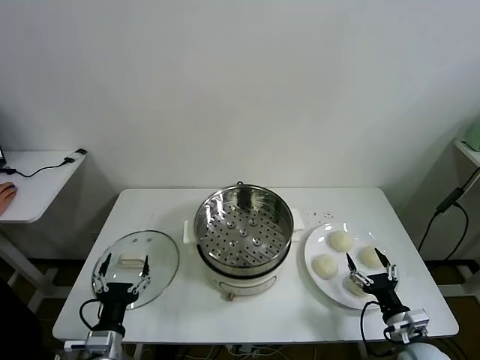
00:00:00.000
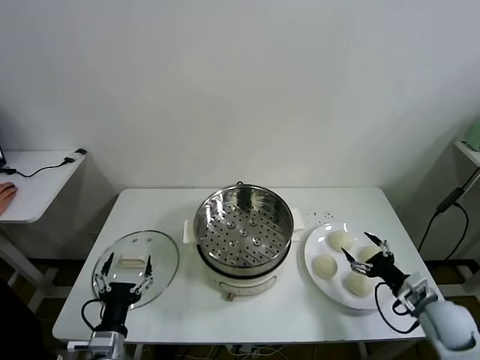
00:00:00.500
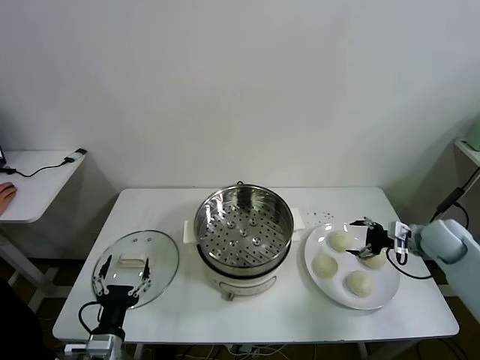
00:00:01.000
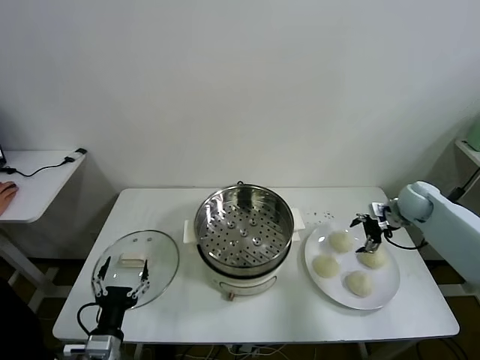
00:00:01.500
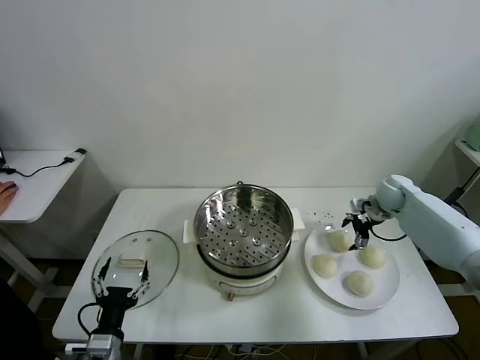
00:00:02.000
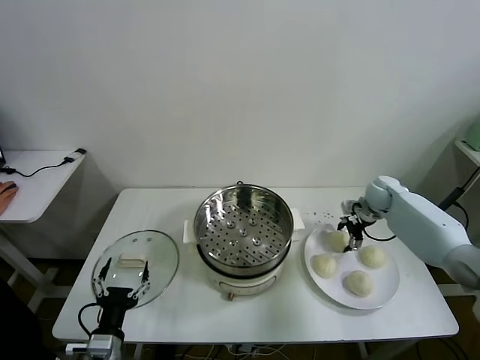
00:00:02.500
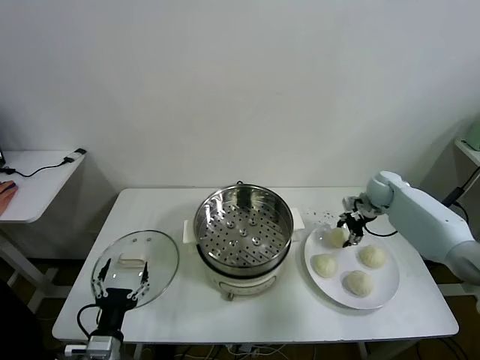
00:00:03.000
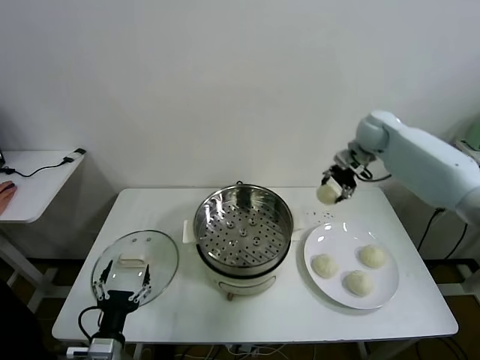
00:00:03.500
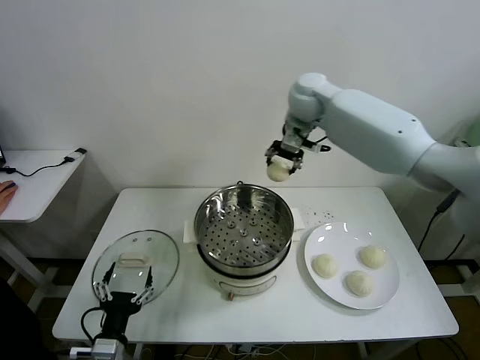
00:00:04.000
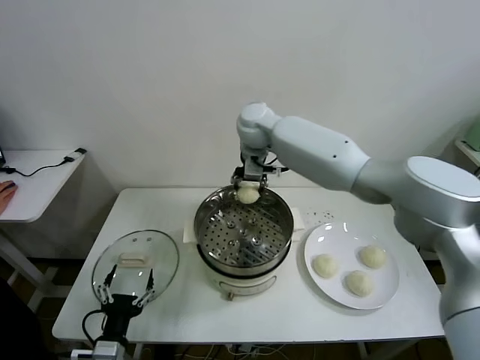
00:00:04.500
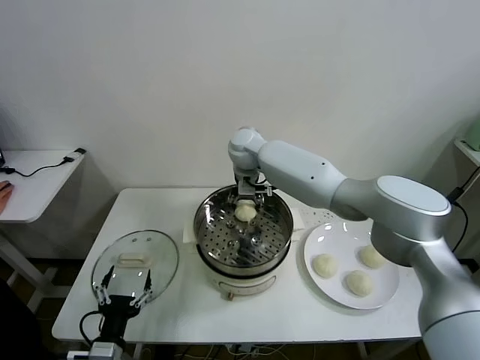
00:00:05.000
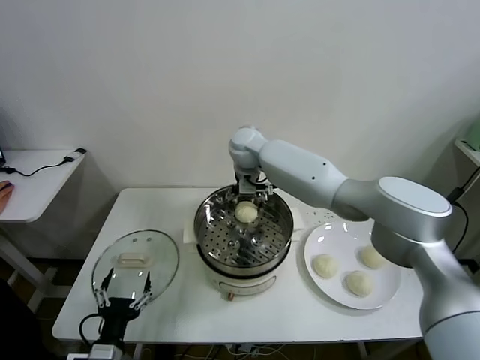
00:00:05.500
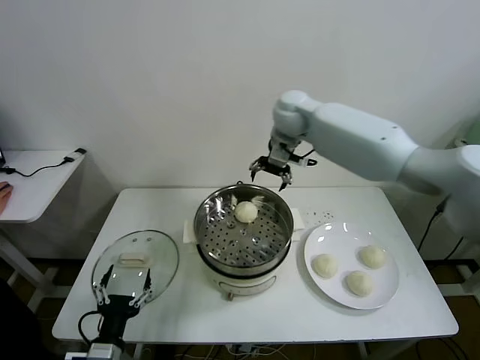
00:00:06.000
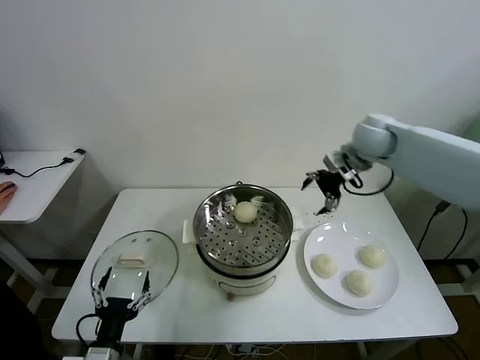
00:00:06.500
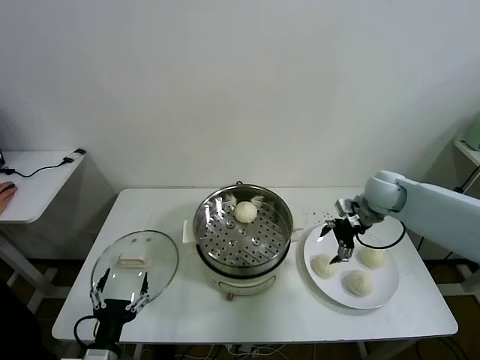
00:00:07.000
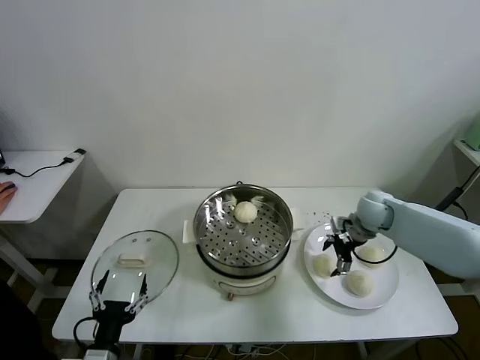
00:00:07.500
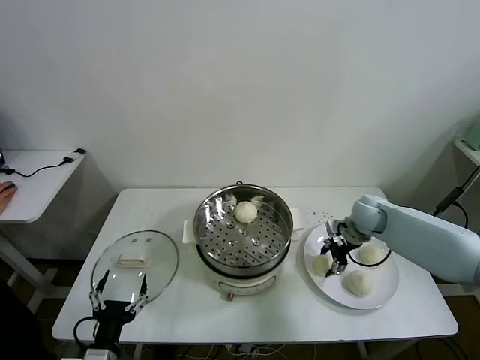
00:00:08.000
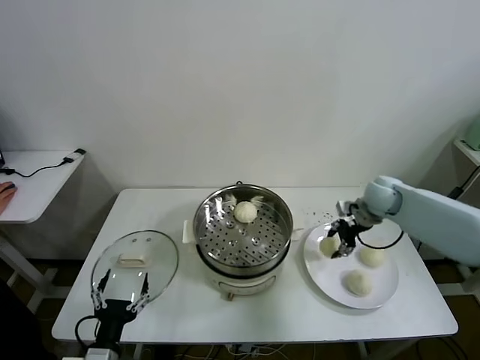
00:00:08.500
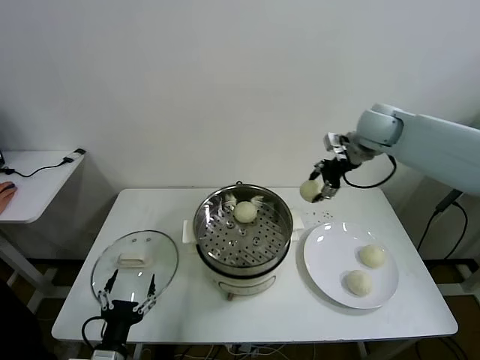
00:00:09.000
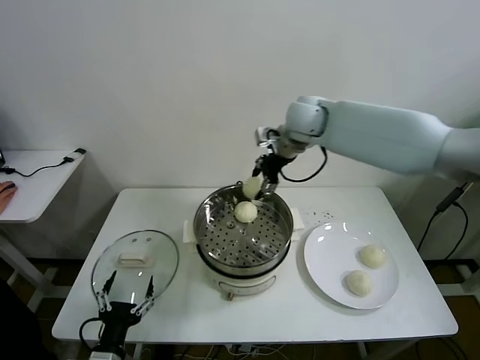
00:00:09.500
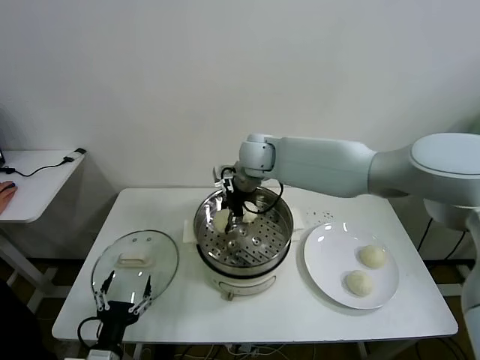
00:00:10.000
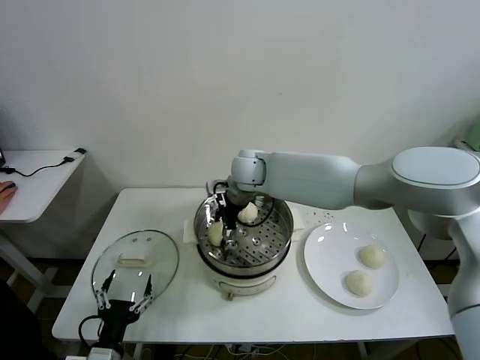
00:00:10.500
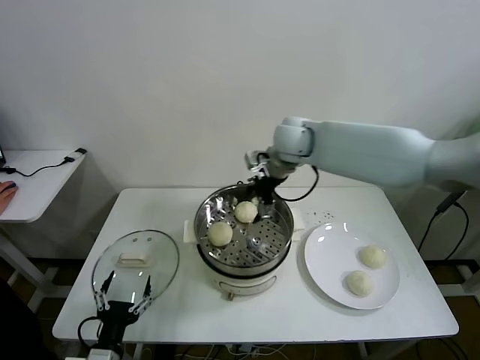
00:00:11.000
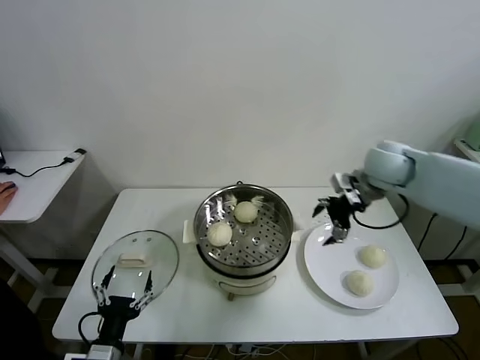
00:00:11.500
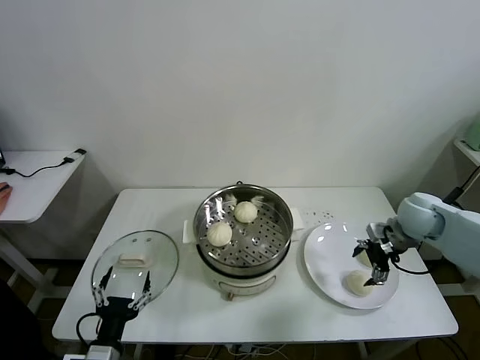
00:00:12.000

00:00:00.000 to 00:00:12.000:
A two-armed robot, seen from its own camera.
Task of the whole recording: take steamed baozi put them in steamer then cover it.
Step, 00:00:00.000 to 00:00:02.500: Grasp the baozi in the plate with right gripper.
Step, 00:00:03.000 to 00:00:05.000: Place the baozi on the steamer with right gripper.
Step, 00:00:05.500 to 00:00:08.000: Grasp the baozi in the plate with right gripper.
Step, 00:00:08.500 to 00:00:10.500: Place the baozi on the steamer with right gripper.
00:00:02.000 to 00:00:04.000: The right gripper moves to the left and upward, some 40 cm, and closes its fingers.
00:00:04.000 to 00:00:06.000: The right gripper goes to the left and returns, roughly 10 cm each way, and opens.
00:00:06.000 to 00:00:08.000: The right gripper shifts some 30 cm downward and to the right, and closes.
00:00:08.000 to 00:00:10.000: The right gripper moves to the left and upward, about 35 cm.
00:00:10.000 to 00:00:12.000: The right gripper travels to the right by some 35 cm, and opens up.

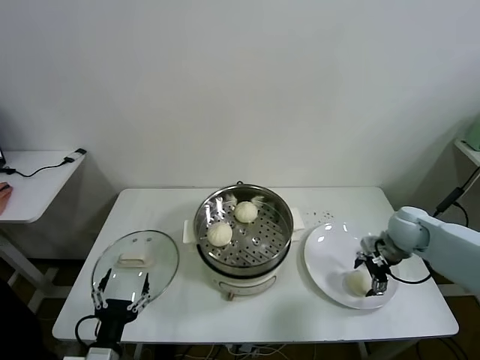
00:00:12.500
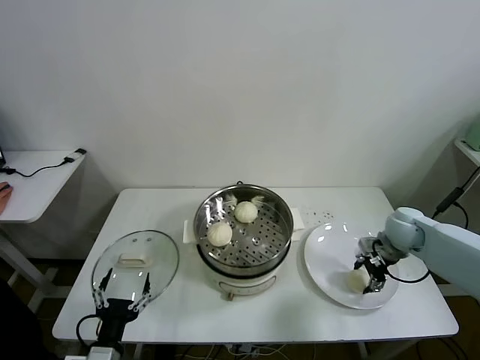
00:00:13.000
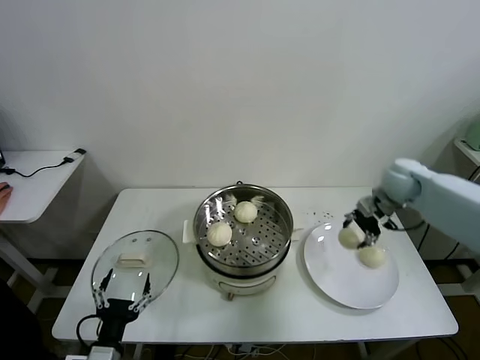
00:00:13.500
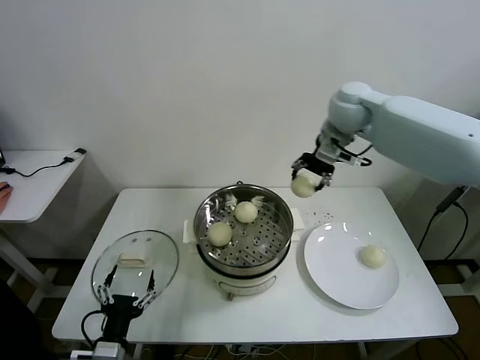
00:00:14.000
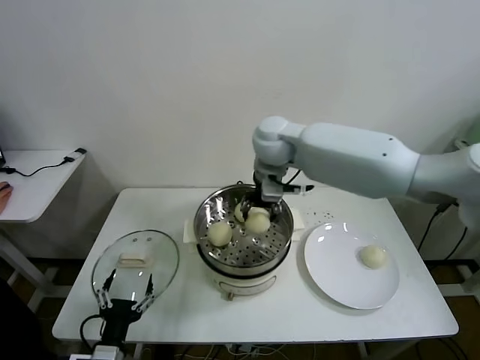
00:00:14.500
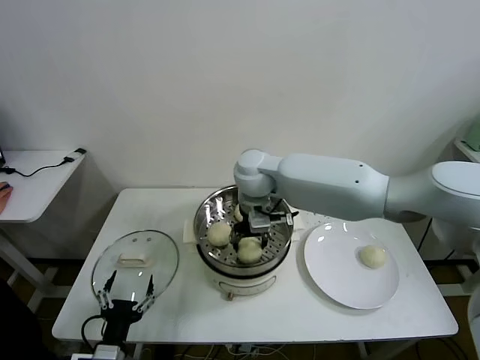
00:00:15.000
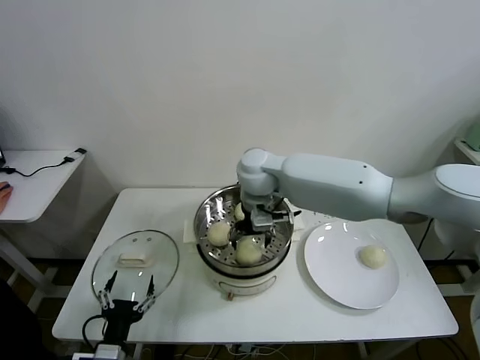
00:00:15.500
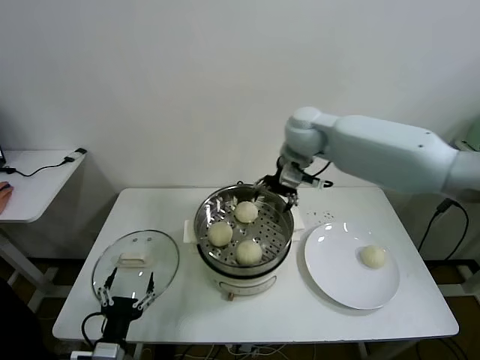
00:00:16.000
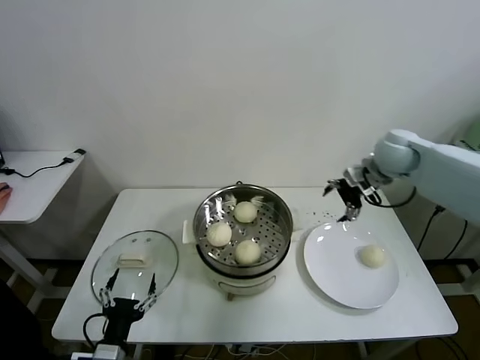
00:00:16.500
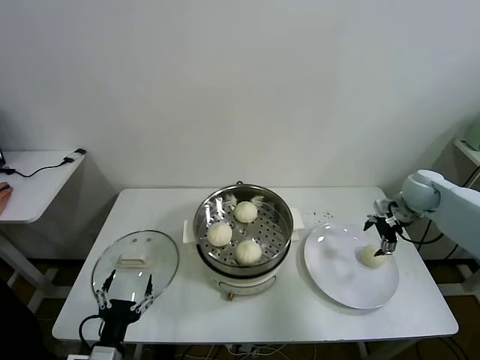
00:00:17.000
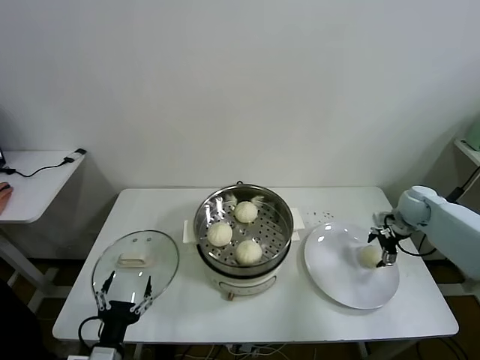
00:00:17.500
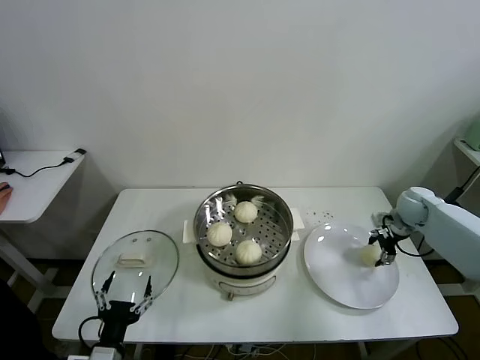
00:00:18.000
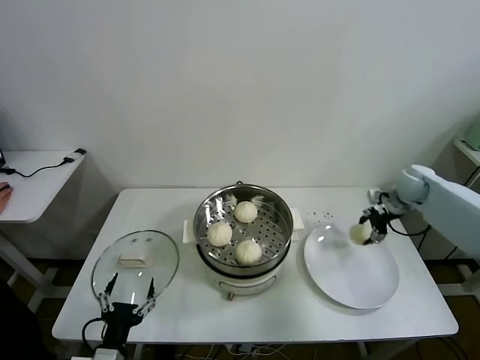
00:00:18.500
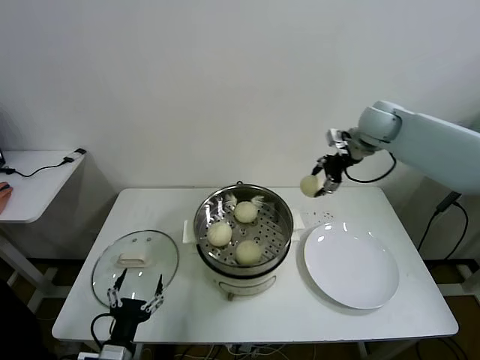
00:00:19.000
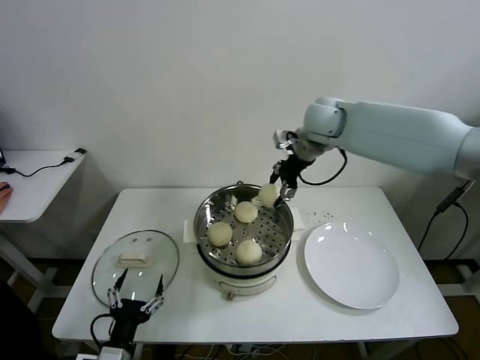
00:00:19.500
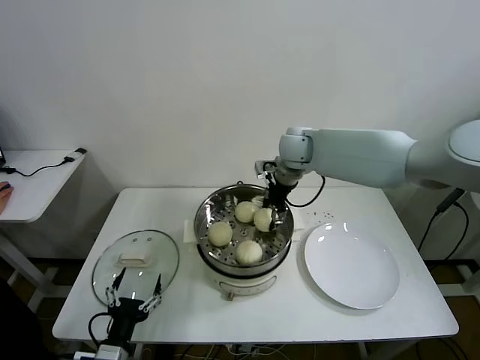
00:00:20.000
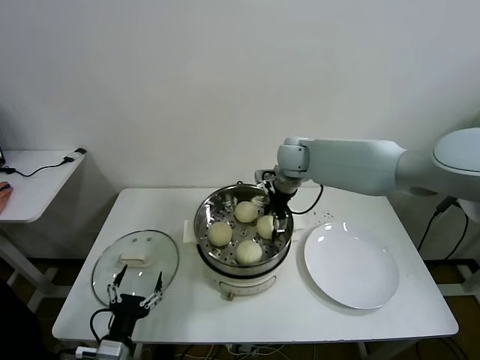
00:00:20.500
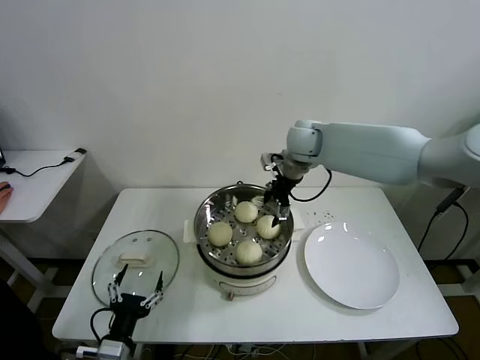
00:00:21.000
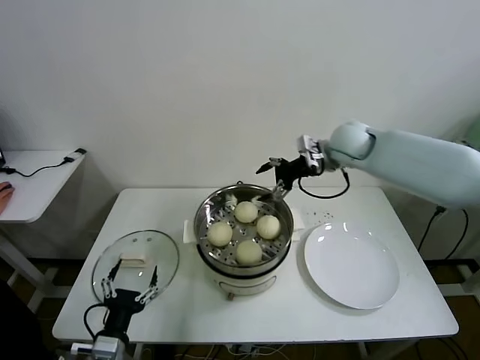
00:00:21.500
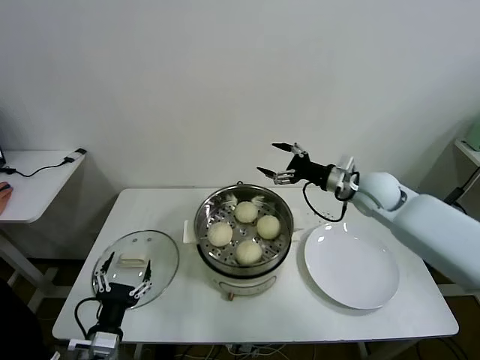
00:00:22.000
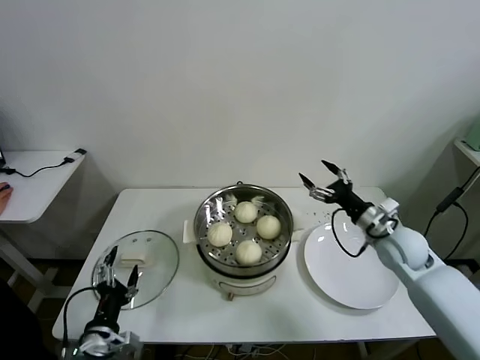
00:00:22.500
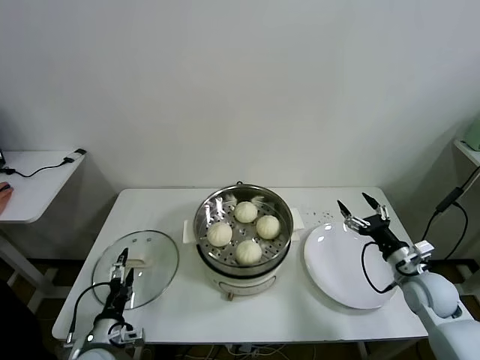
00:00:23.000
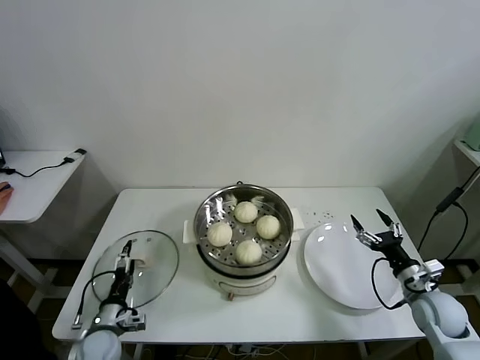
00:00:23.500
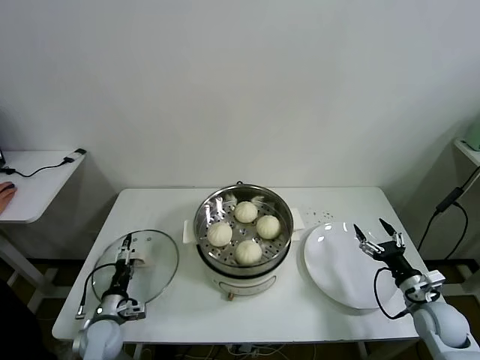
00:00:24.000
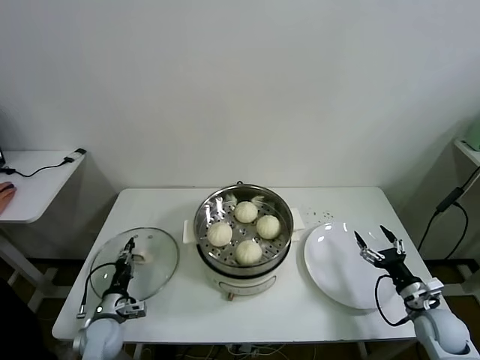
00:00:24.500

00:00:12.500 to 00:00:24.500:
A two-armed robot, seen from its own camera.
Task of the whole recording: take steamed baozi put them in steamer then cover it.
Step, 00:00:13.500 to 00:00:15.000: Place the baozi on the steamer with right gripper.
Step, 00:00:16.000 to 00:00:18.000: Grasp the baozi in the plate with right gripper.
Step, 00:00:18.500 to 00:00:20.500: Place the baozi on the steamer with right gripper.
00:00:12.500 to 00:00:14.500: The right gripper shifts some 40 cm to the left and upward, and closes its fingers.
00:00:14.500 to 00:00:16.500: The right gripper shifts about 30 cm to the right, and opens.
00:00:16.500 to 00:00:18.500: The right gripper is displaced downward and to the right by some 15 cm, and closes.
00:00:18.500 to 00:00:20.500: The right gripper goes approximately 30 cm to the left, and opens up.
00:00:20.500 to 00:00:22.500: The right gripper goes some 30 cm to the right, backward and downward.
00:00:22.500 to 00:00:24.500: The left gripper is displaced downward, forward and to the left by some 20 cm, and closes, while the right gripper shifts approximately 20 cm downward, backward and to the right.

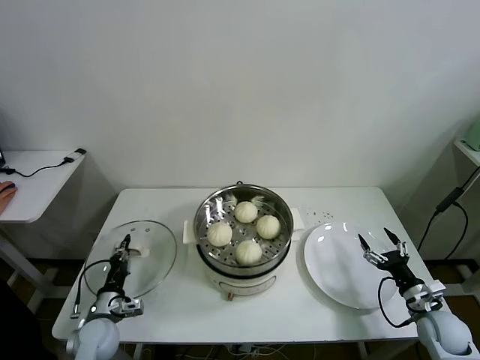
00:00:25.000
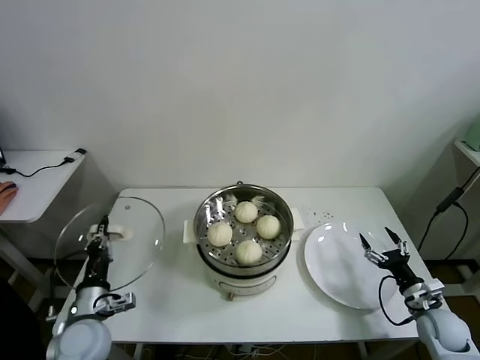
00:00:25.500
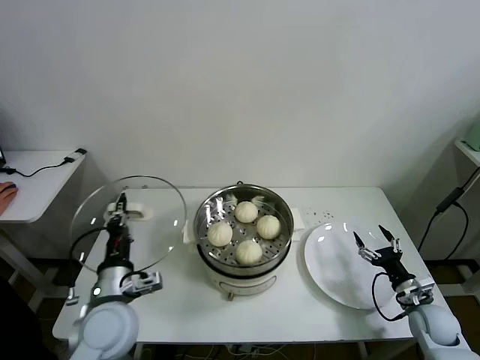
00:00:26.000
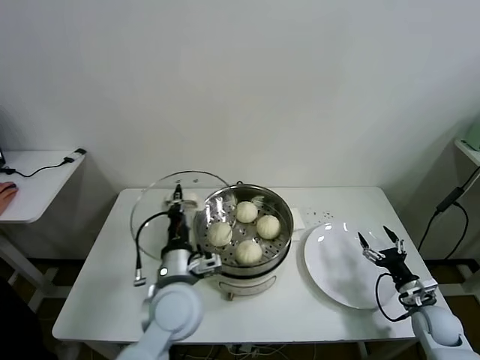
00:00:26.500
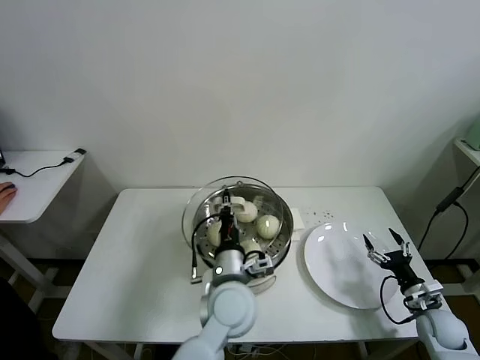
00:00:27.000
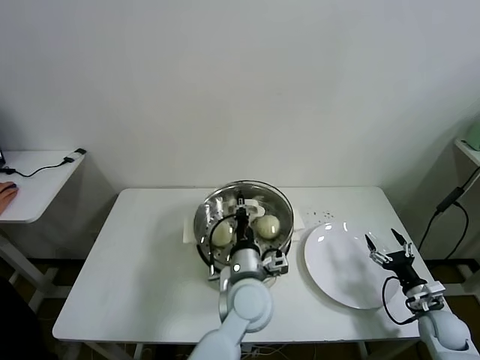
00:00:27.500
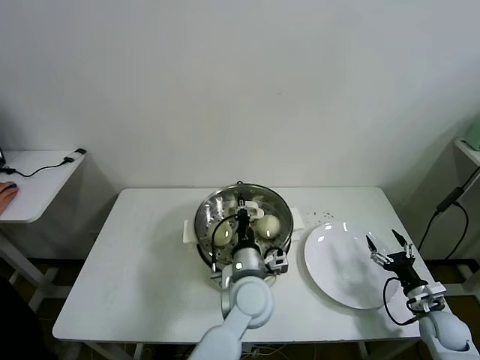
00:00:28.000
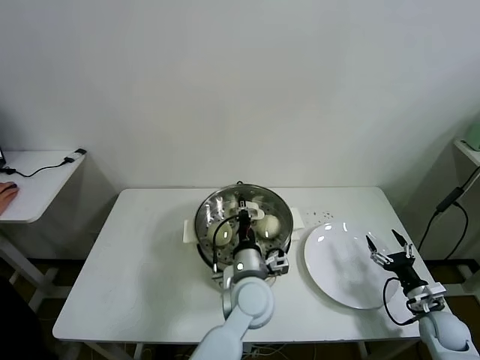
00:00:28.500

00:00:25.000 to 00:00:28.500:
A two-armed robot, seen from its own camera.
Task of the whole recording: take steamed baozi put them in steamer then cover it.
00:00:25.000 to 00:00:27.000: The left gripper heads to the right and upward, covering about 35 cm.
00:00:27.000 to 00:00:28.500: The left gripper changes place by approximately 5 cm.
